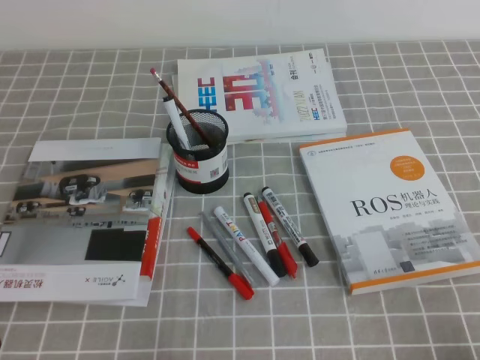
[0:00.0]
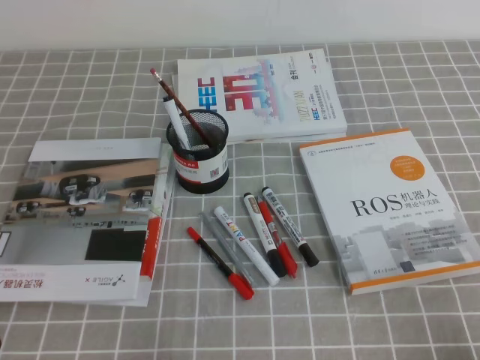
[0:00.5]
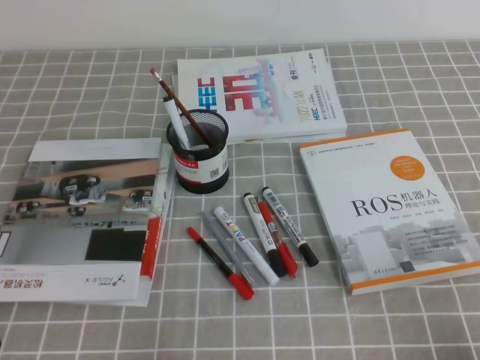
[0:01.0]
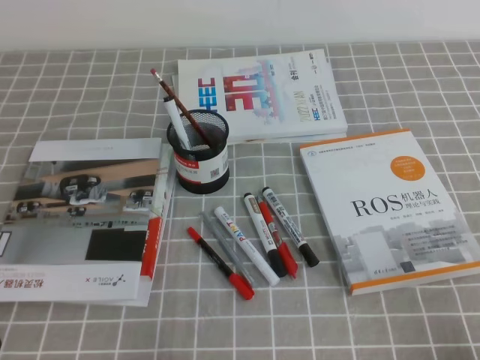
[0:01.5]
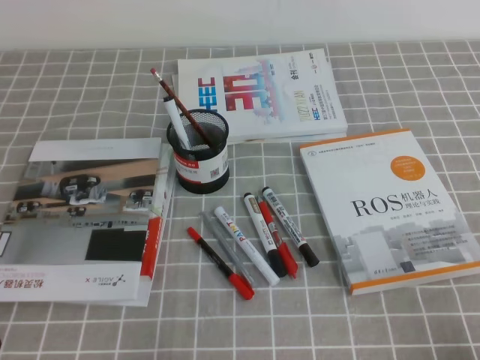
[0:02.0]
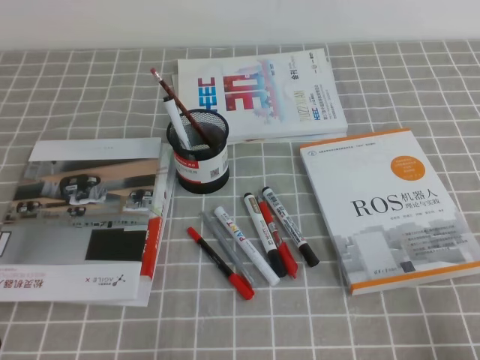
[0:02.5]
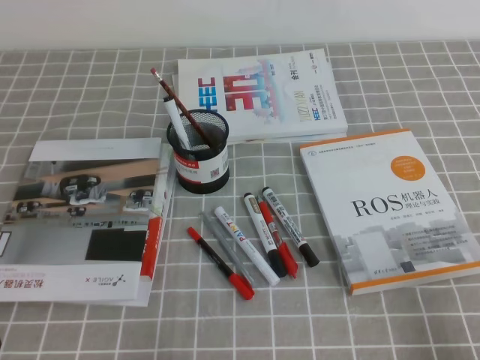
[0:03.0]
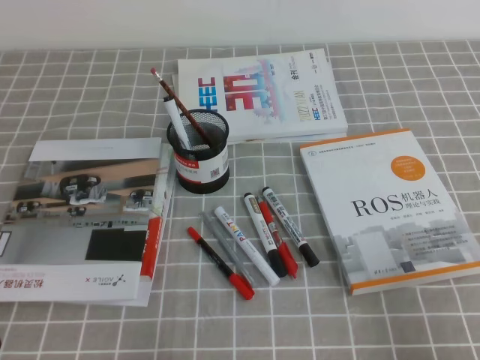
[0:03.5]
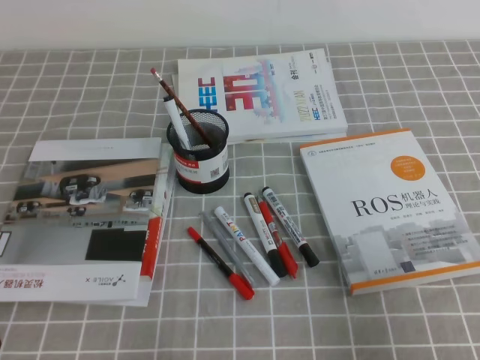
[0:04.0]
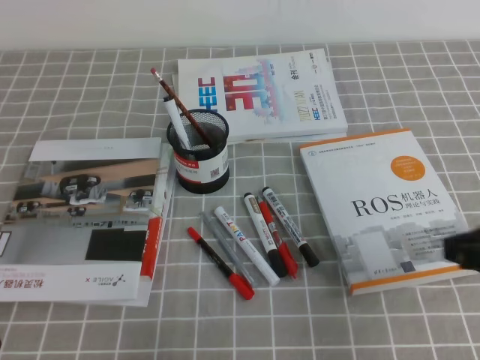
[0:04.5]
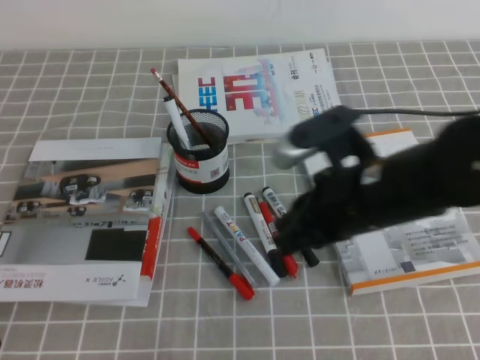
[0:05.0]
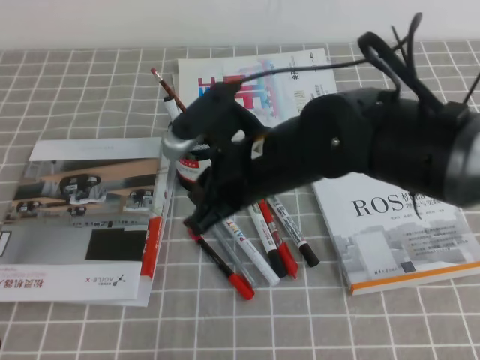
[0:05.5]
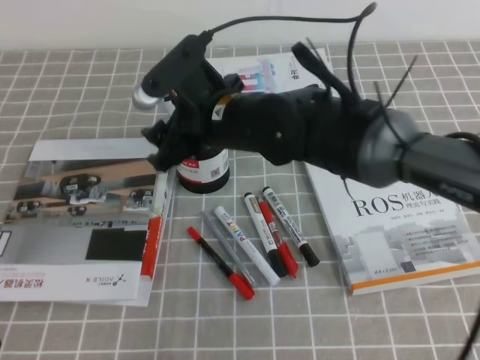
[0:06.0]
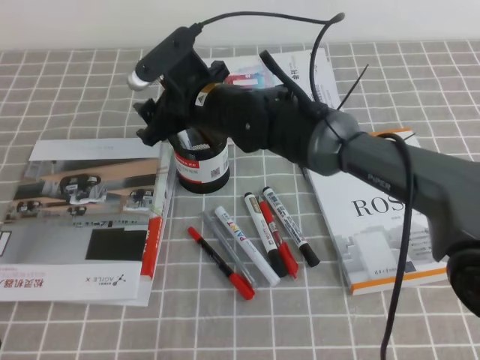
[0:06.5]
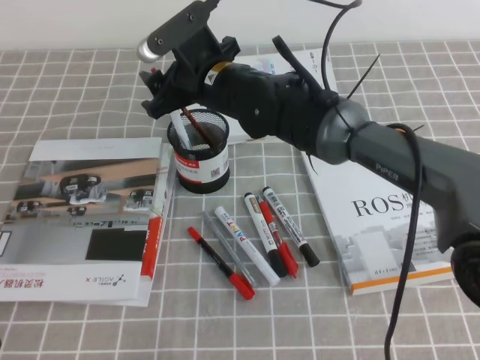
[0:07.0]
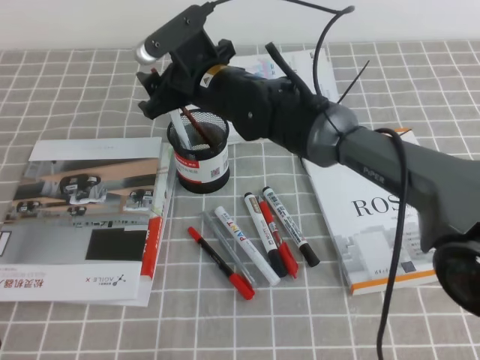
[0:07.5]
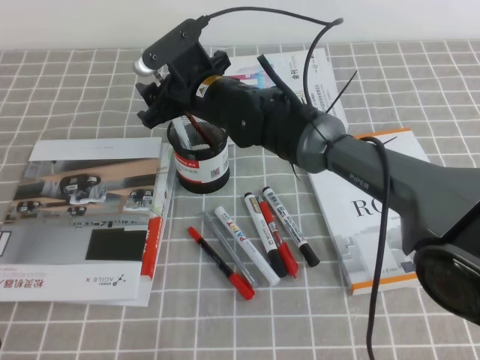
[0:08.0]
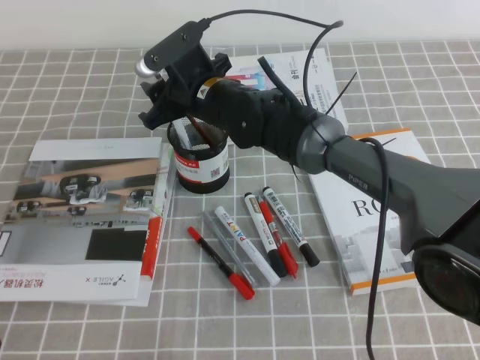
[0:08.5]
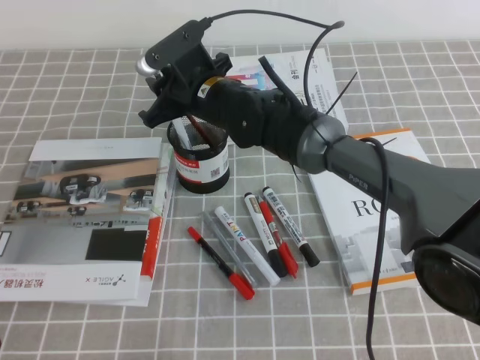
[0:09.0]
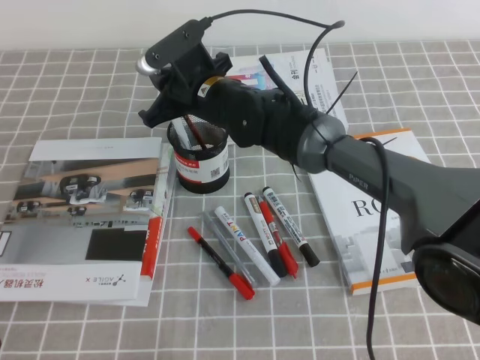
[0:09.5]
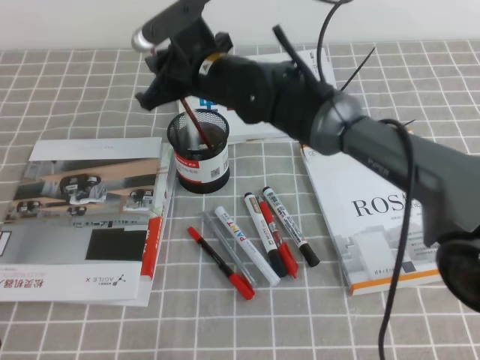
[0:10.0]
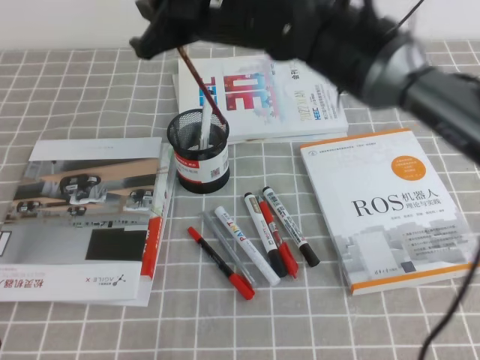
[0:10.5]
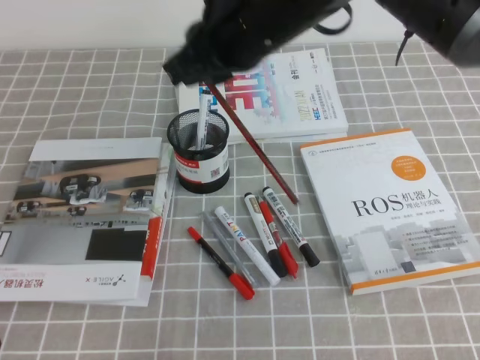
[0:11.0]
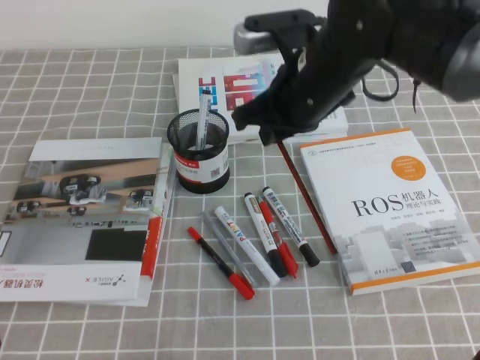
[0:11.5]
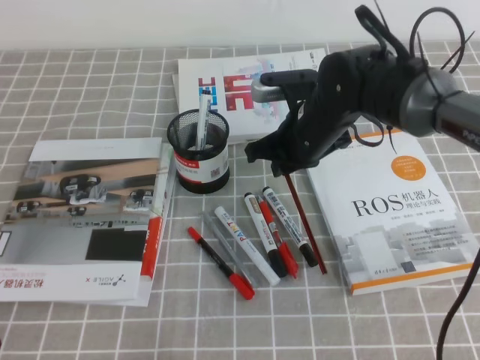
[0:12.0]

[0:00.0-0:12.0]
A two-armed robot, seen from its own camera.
0:00.0 to 0:02.0: The two grippers keep their place.
0:02.0 to 0:04.0: The right gripper shifts about 10 cm upward.
0:04.0 to 0:06.0: The right gripper travels to the left and forward by about 40 cm, and opens up.
0:06.0 to 0:08.0: The right gripper heads forward, covering roughly 10 cm.
0:08.0 to 0:10.0: The right gripper closes its fingers.
0:10.0 to 0:12.0: The right gripper moves to the right, roughly 10 cm, and travels upward and back again, some 10 cm each way.

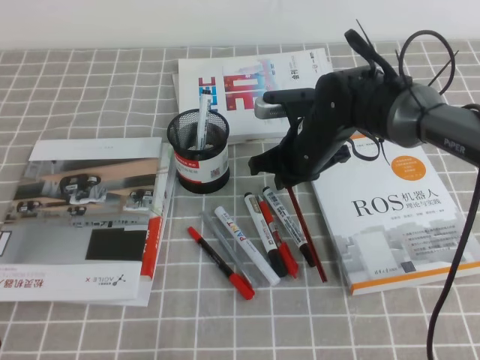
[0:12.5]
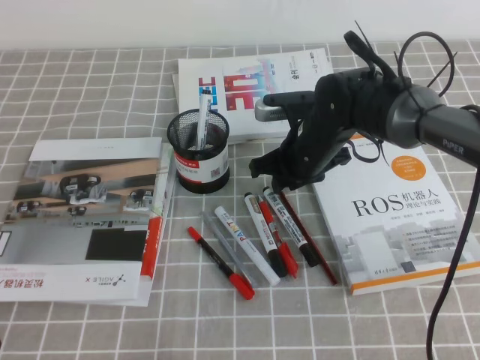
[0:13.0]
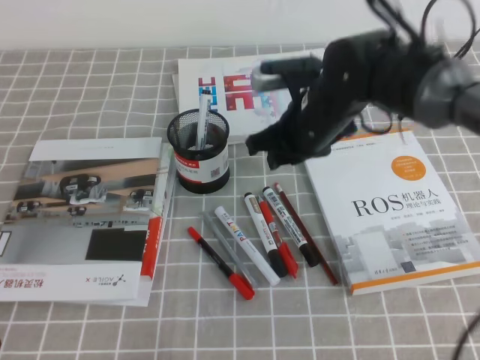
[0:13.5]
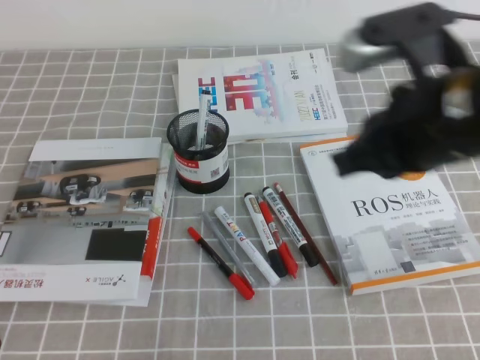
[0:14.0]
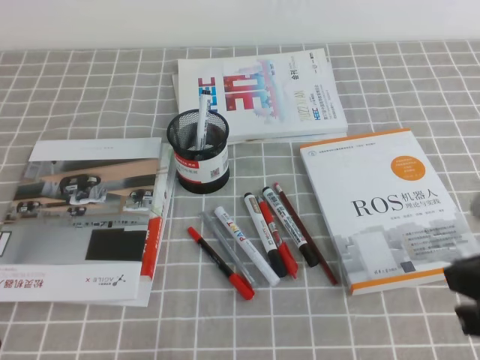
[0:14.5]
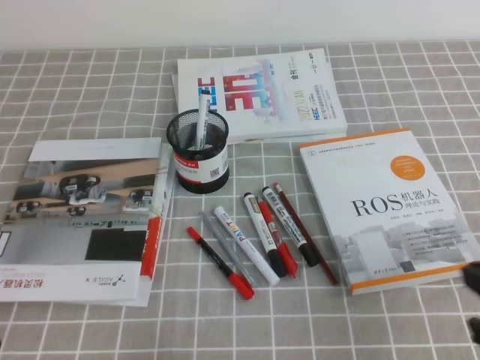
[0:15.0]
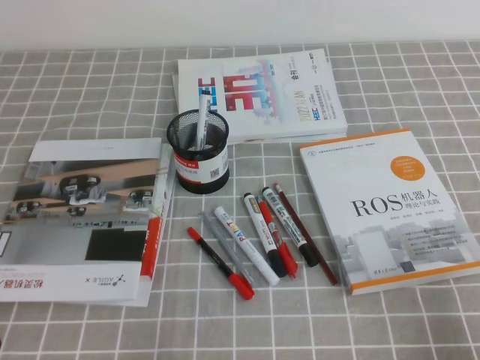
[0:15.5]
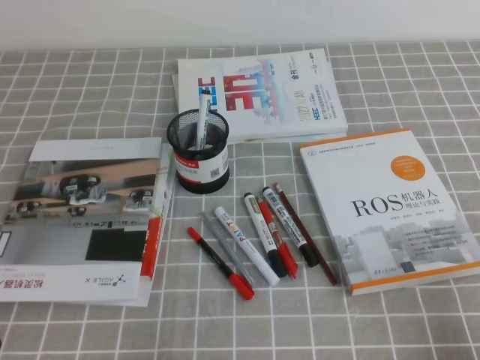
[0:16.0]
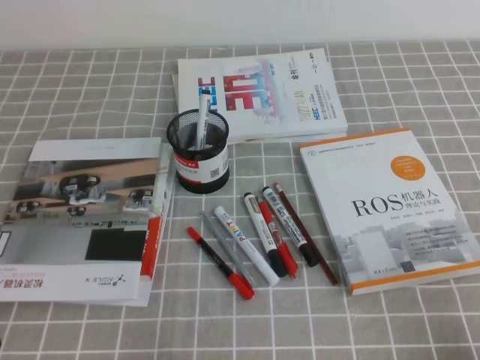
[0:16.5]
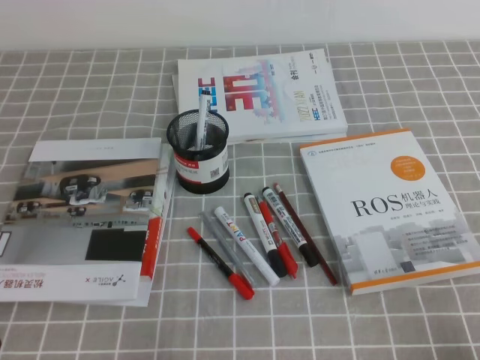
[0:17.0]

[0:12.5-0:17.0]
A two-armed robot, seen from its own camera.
Step, 0:12.5 to 0:17.0: Pick up the pen from the pen holder.
0:12.5 to 0:14.5: The right gripper is displaced backward, to the right and upward by approximately 35 cm, and opens, then closes once more.
0:14.5 to 0:17.0: The right gripper goes approximately 20 cm downward, to the right and backward.
